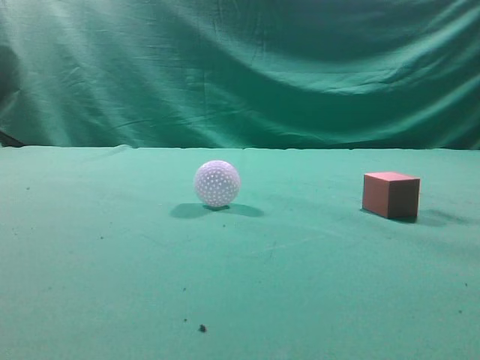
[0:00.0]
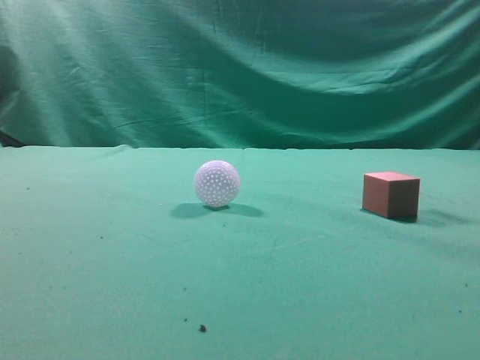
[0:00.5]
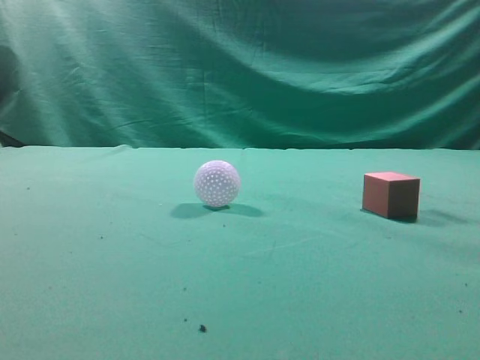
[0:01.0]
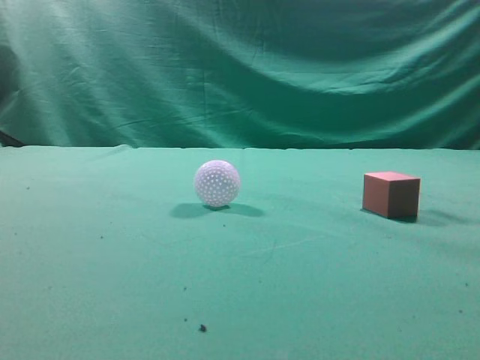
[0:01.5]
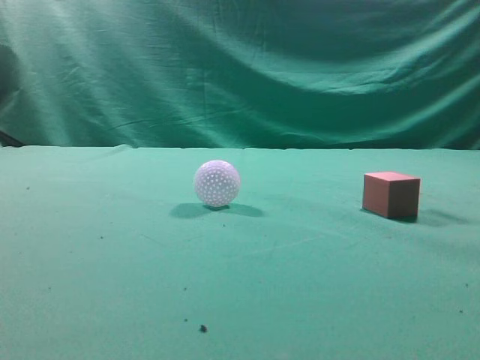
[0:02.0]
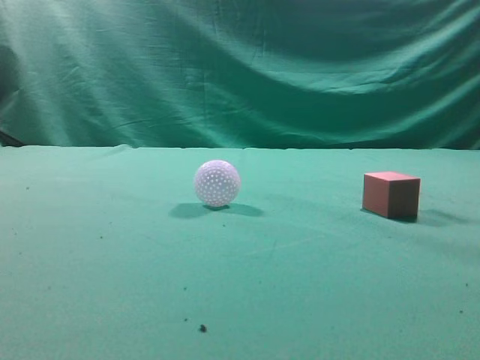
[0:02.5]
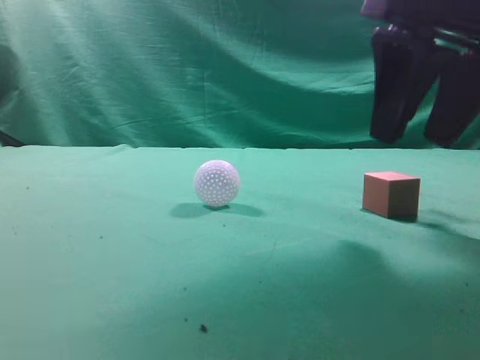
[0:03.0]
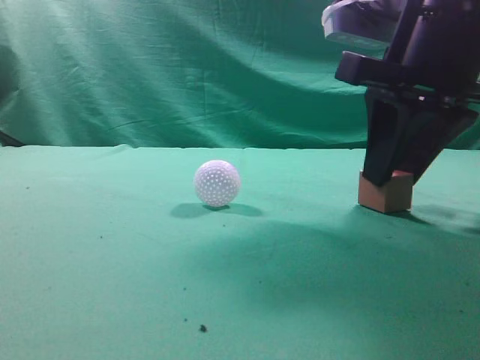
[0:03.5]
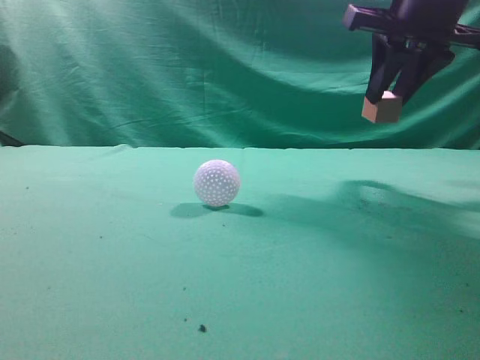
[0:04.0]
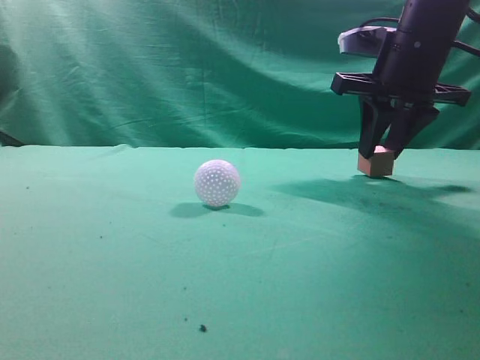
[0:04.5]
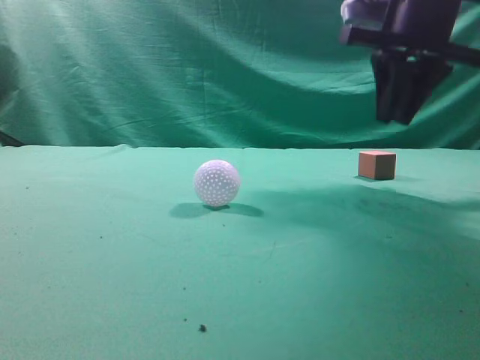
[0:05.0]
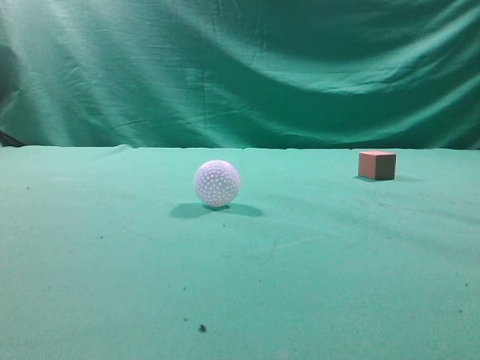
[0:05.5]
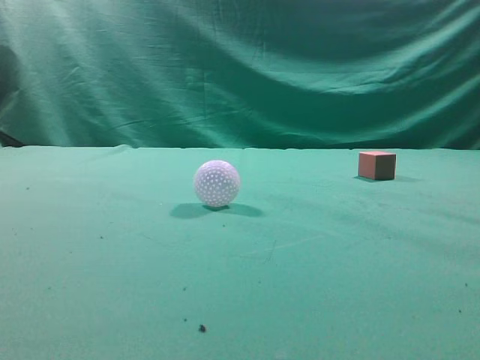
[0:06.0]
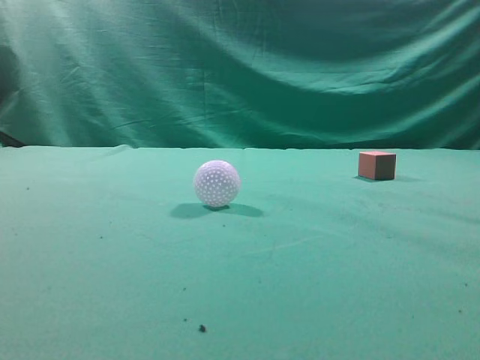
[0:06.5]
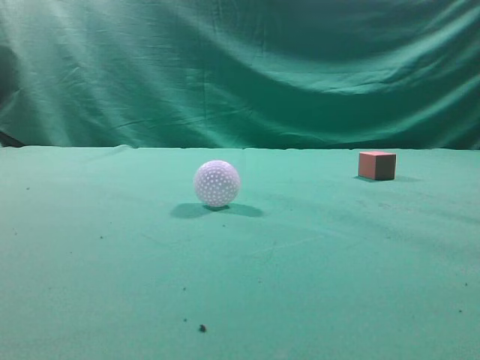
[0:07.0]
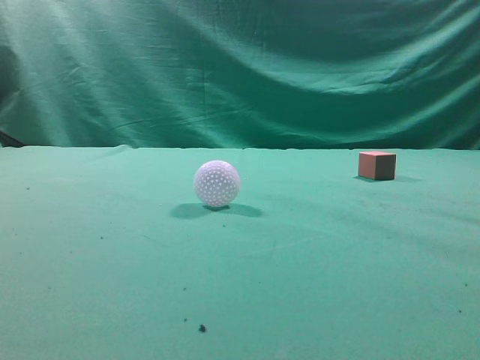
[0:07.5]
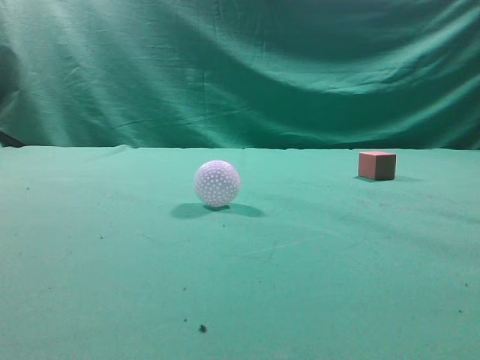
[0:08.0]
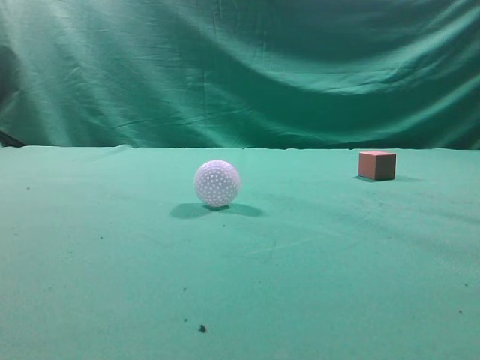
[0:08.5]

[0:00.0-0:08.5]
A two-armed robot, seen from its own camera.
Task of the whole recording: pick up the cube block and place it in another position on the table.
Step, 0:00.0 to 0:03.5: Pick up the small cube.
Step, 0:04.0 to 0:04.5: Place the small cube on the ahead of the table.
0:02.0 to 0:04.0: The right gripper is displaced forward by roughly 30 cm, and opens up.
0:04.0 to 0:06.5: The right gripper goes about 35 cm backward, and closes its fingers.
